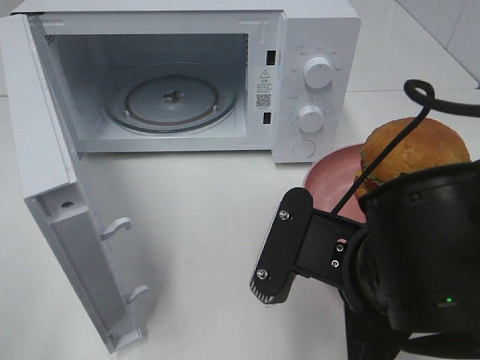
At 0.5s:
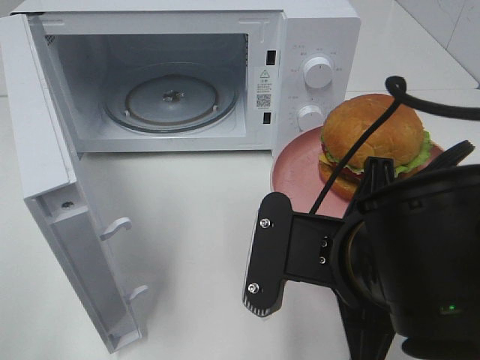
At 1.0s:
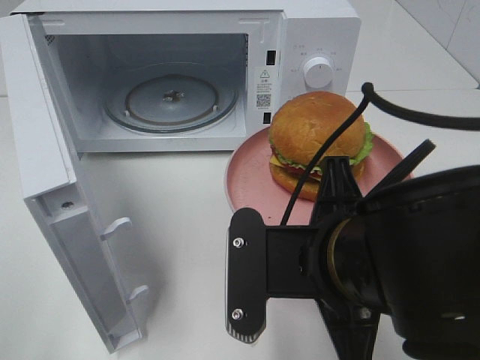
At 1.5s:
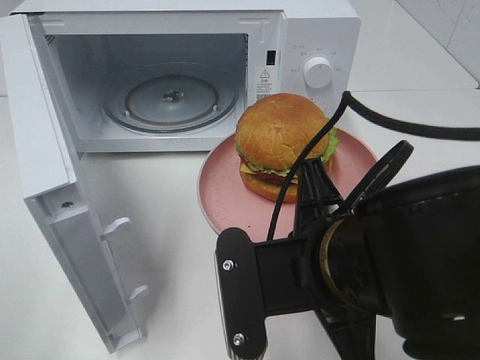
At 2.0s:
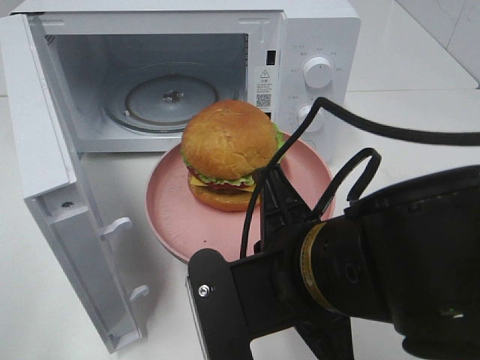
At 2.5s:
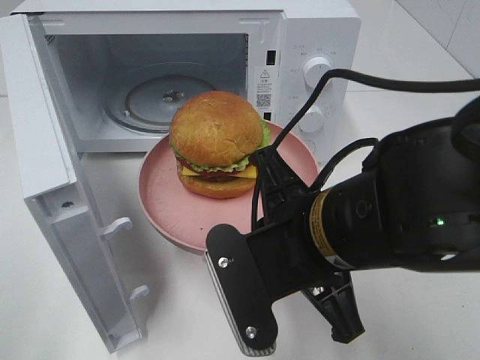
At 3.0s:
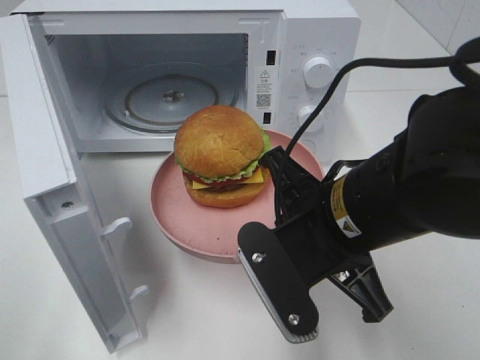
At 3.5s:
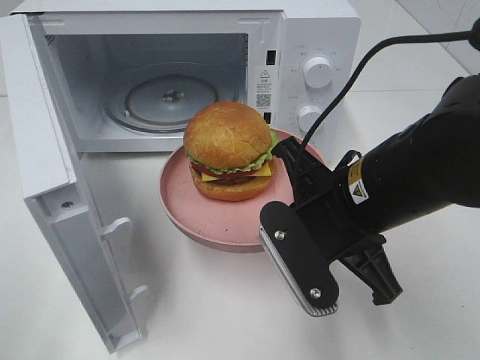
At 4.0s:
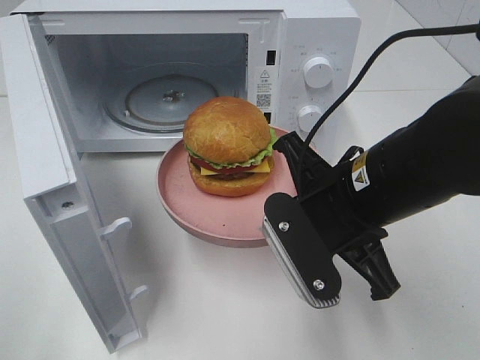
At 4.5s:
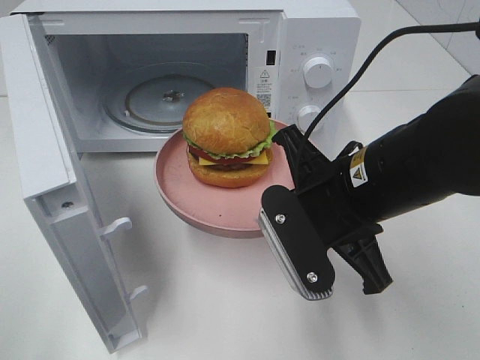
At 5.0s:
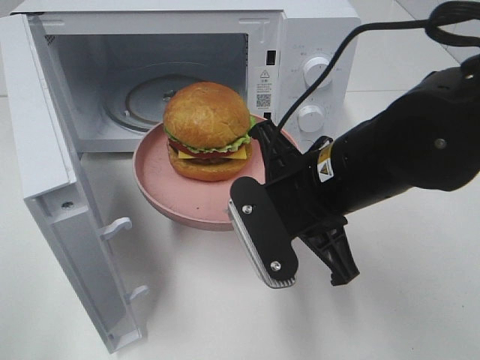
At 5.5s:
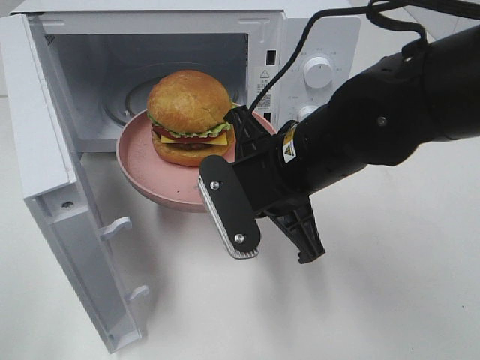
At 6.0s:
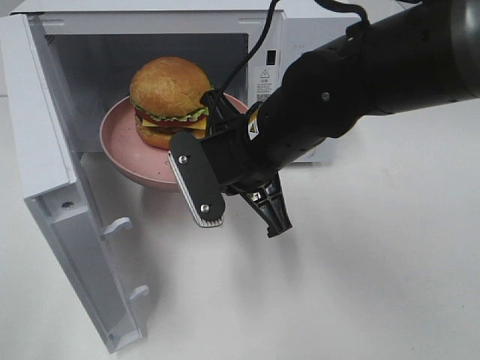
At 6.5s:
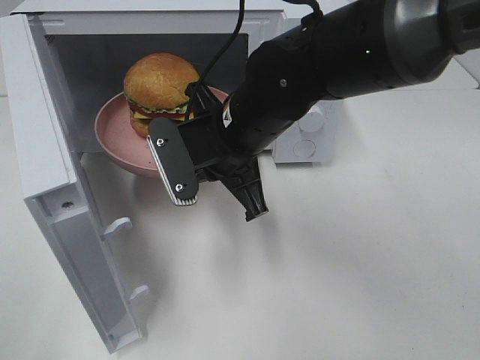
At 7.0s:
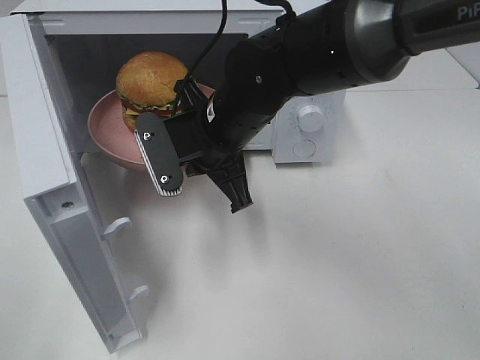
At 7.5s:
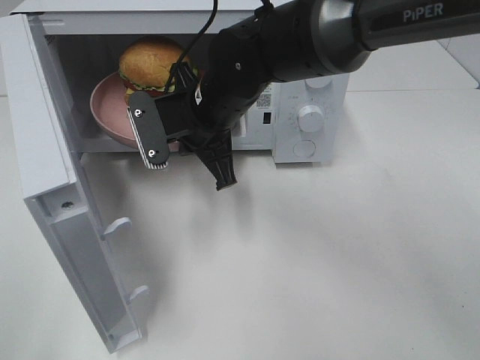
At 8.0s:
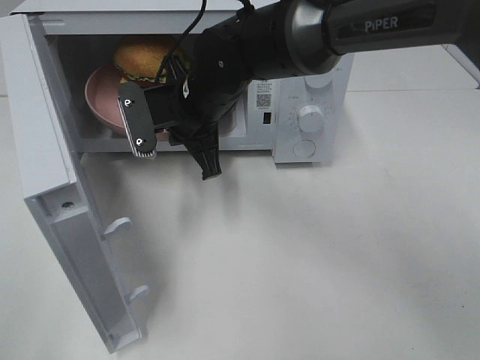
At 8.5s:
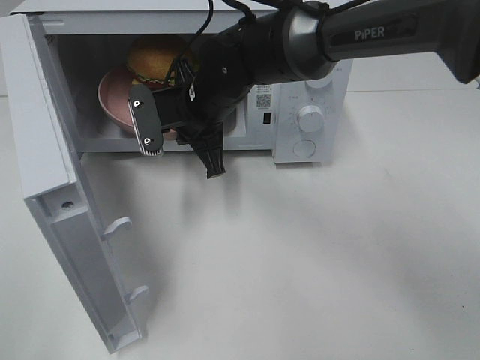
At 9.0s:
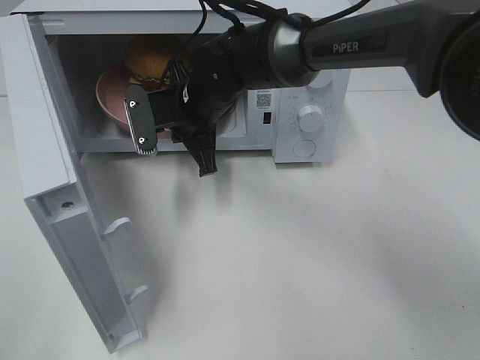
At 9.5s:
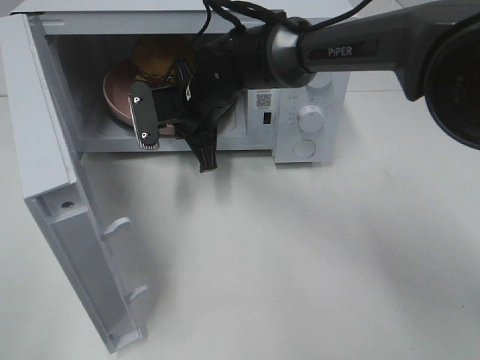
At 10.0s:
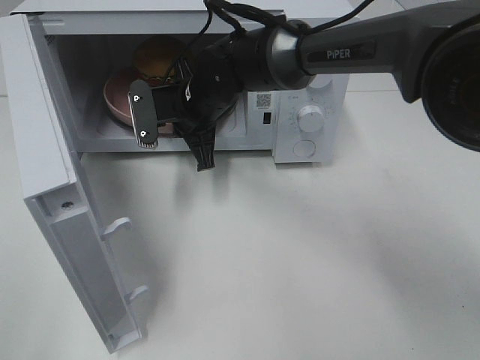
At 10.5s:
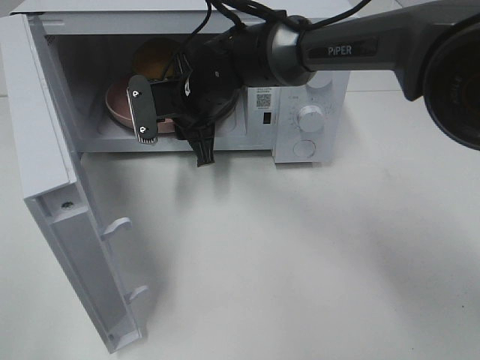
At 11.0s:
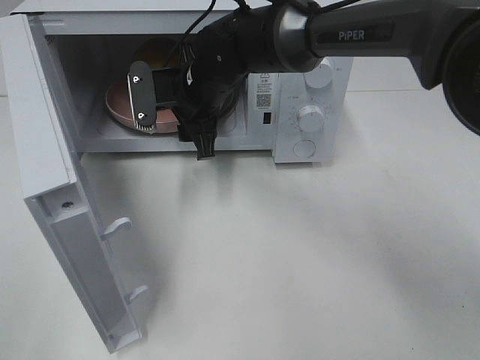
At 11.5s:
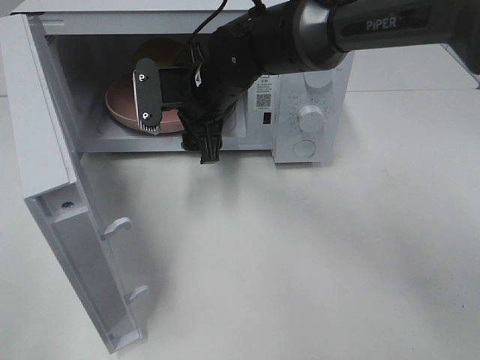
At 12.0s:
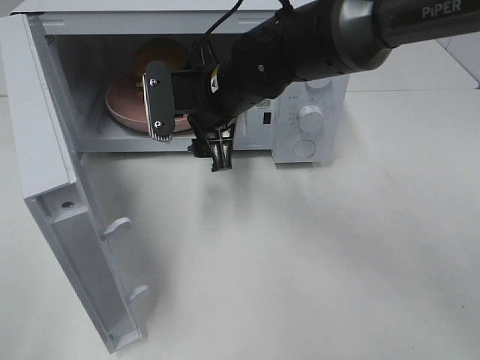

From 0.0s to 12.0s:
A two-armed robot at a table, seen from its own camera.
Task of the whole recording: Heat the burger.
Step, from 0.0s to 10.5s: Right hand: place the plate in the microwave.
From 2.0s to 4.0s: The right gripper travels forward and to the right by some 10 cm.
From 4.0s to 6.0s: The right gripper goes about 10 cm to the left and forward.
From 6.0s to 8.0s: The right gripper moves forward and to the left, about 10 cm.
From 8.0s to 10.0s: The right gripper shifts by approximately 5 cm.
From 10.0s to 12.0s: The right gripper moves backward, approximately 5 cm, and opens its fingers.

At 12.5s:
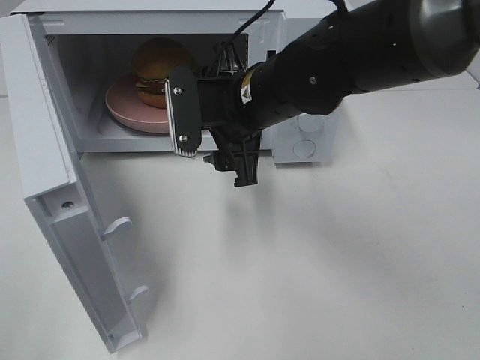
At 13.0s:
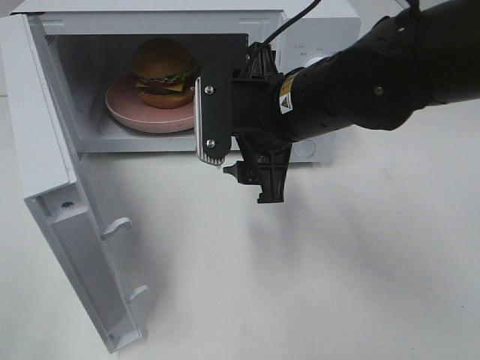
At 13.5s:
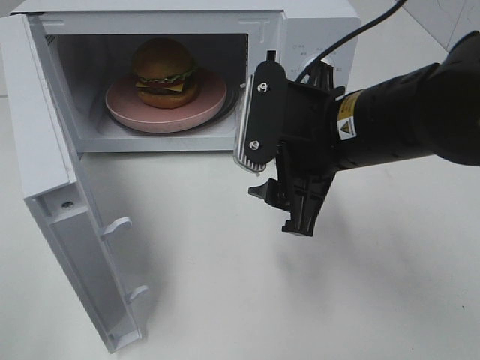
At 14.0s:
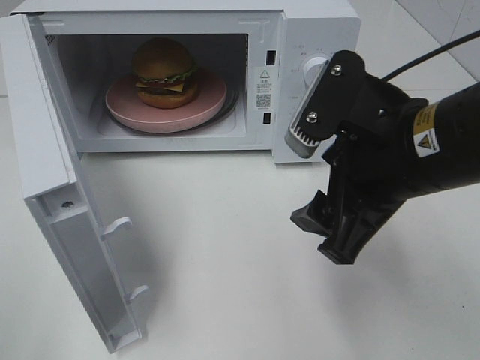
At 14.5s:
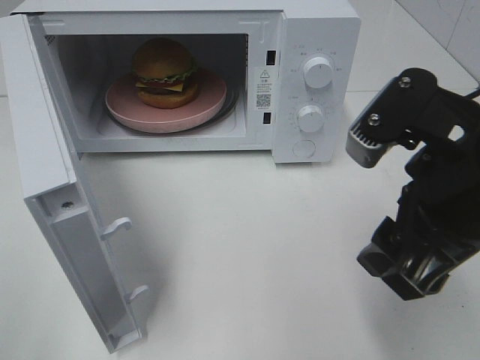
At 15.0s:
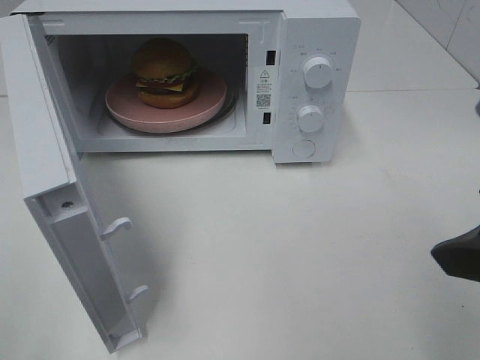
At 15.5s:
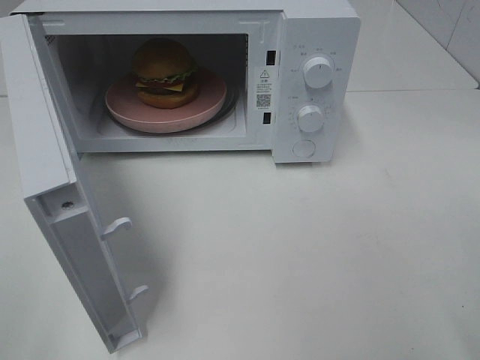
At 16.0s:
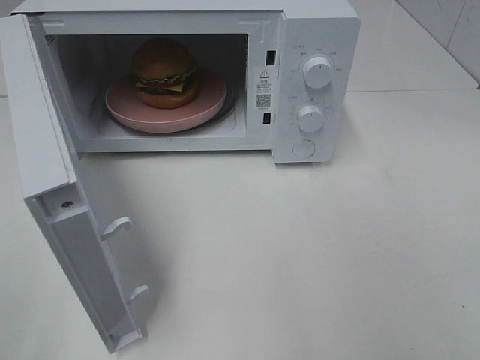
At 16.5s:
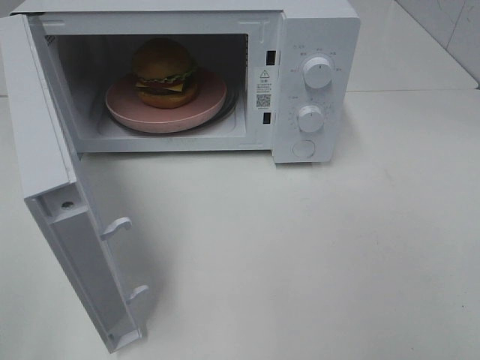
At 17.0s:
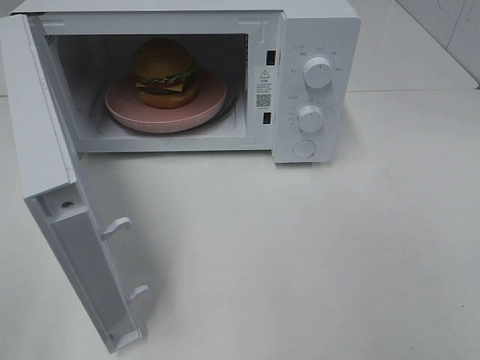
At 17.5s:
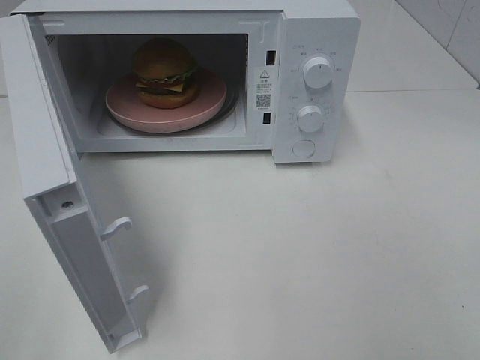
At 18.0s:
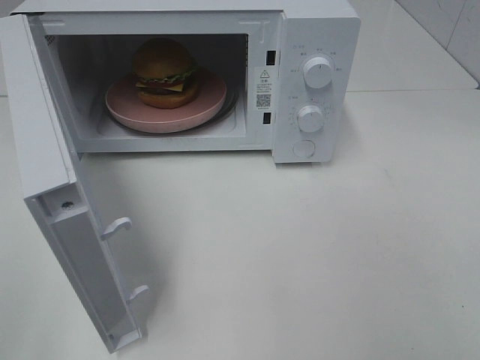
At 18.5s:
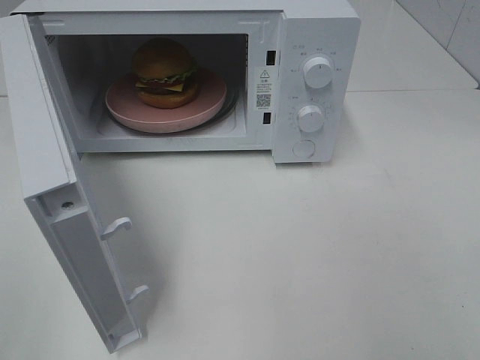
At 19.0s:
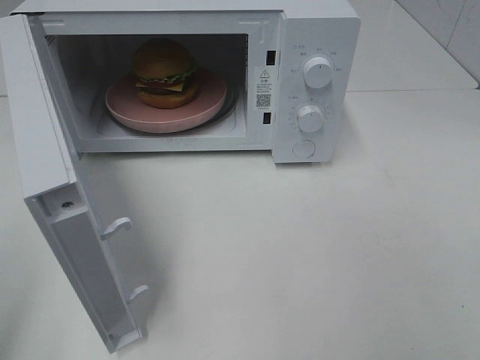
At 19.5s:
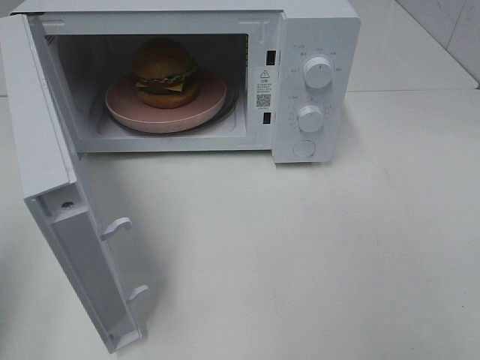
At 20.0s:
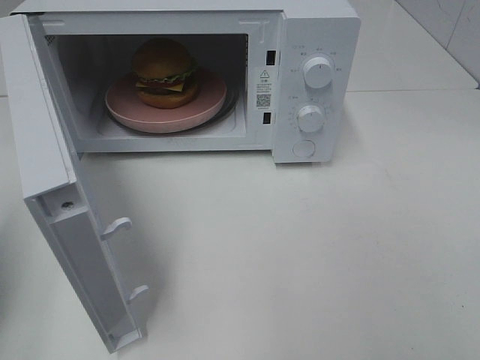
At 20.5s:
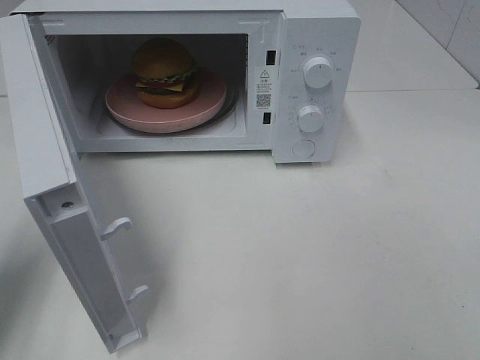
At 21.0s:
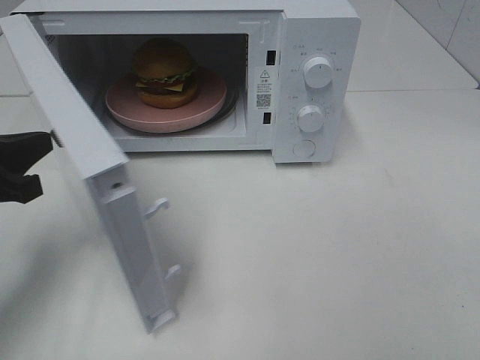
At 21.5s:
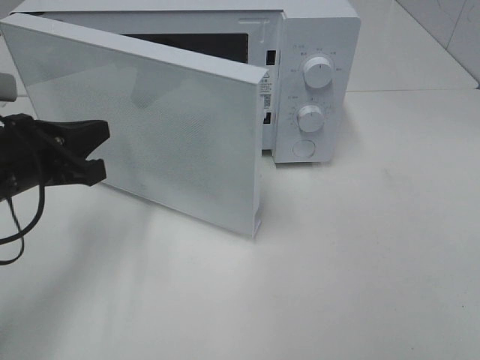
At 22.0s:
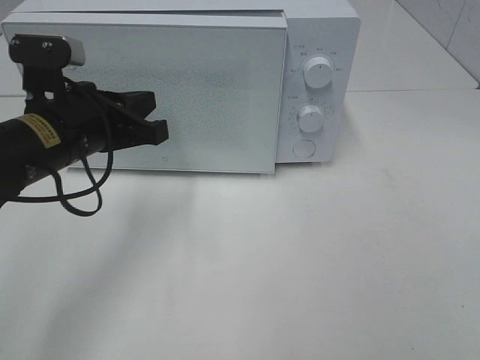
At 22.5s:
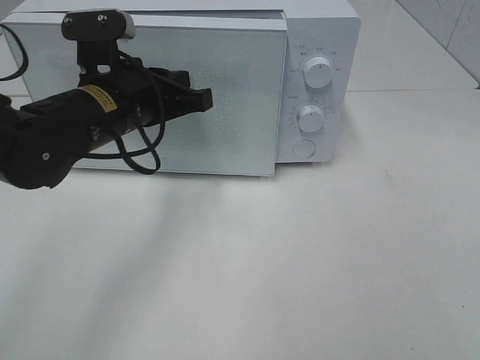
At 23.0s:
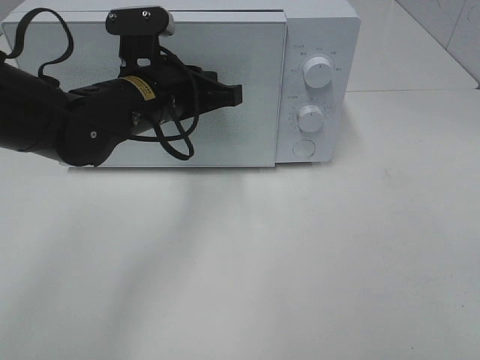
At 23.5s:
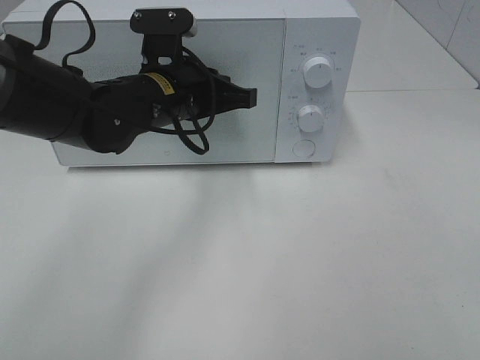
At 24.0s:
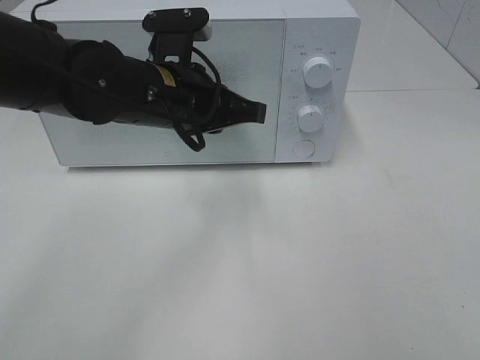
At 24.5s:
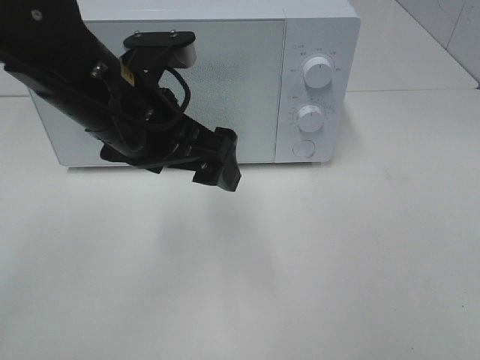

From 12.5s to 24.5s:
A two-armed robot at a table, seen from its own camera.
Task of the whole recording: Heat the burger.
Step, from 12.5s to 23.5s: Left hand: close the microwave door.
From 12.5s to 14.5s: The right gripper is displaced backward and to the right by approximately 20 cm.
From 14.5s to 16.5s: The right gripper moves backward and to the right, roughly 20 cm.
From 16.5s to 18.5s: Both grippers stay about where they are.
From 18.5s to 20.5s: The left gripper travels forward and downward by about 25 cm, and closes.
From 20.5s to 22.5s: The left gripper travels to the right and forward by approximately 20 cm.
From 22.5s to 24.5s: The left gripper goes some 5 cm backward, and opens.

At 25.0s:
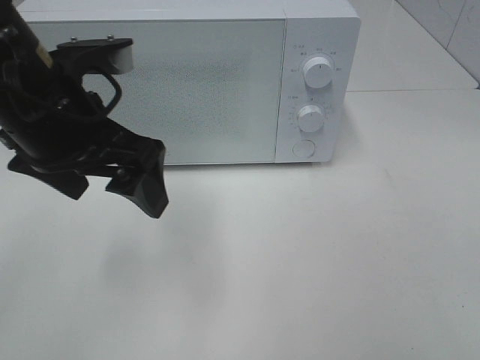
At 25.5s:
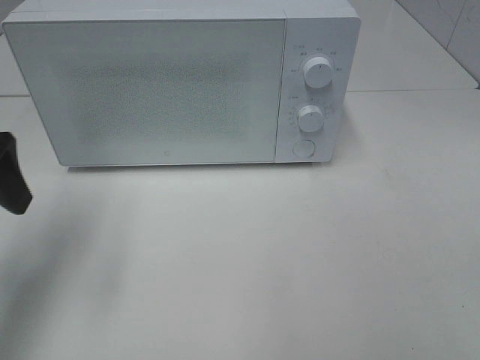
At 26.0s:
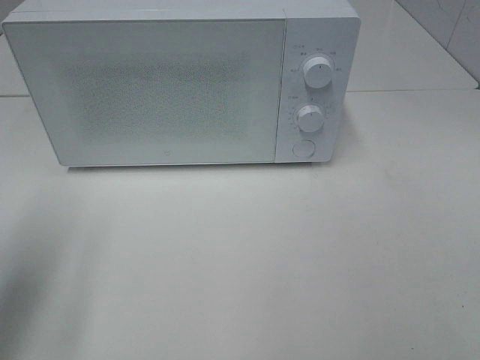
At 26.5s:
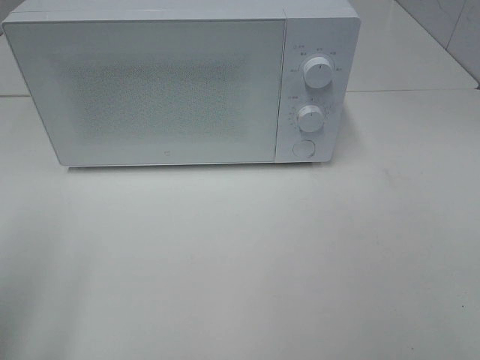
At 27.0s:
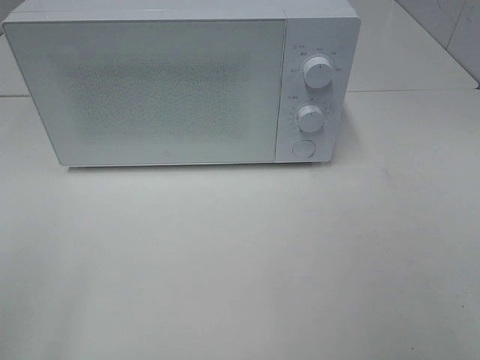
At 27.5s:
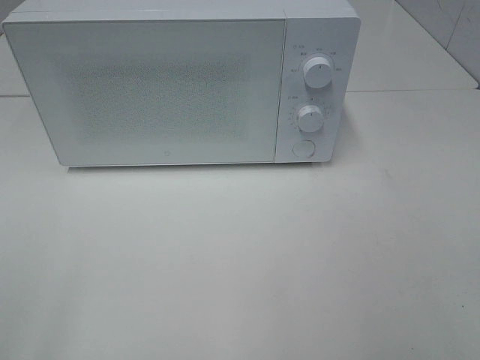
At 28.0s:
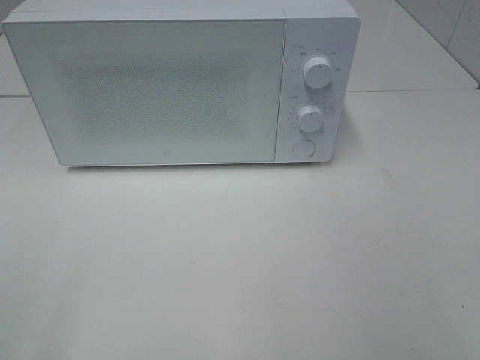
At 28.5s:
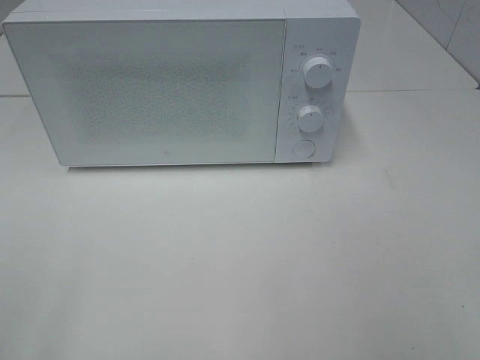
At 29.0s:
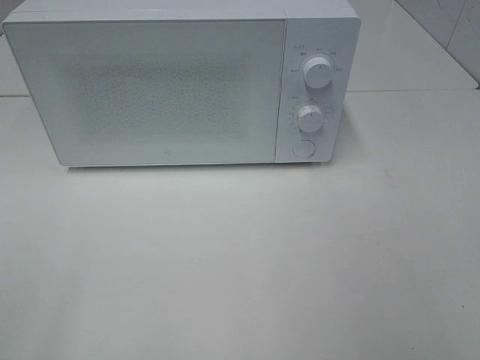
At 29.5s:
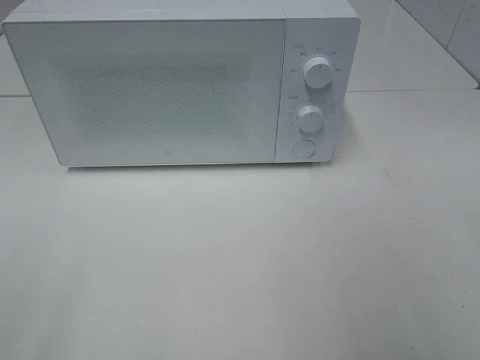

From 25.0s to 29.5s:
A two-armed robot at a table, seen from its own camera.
Task of the whole recording: Heat the burger.
From 25.0s to 27.0s: The left gripper goes about 25 cm backward and to the left.
